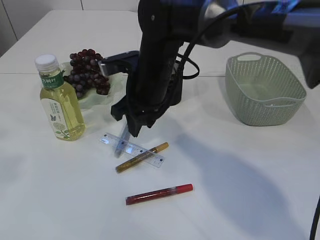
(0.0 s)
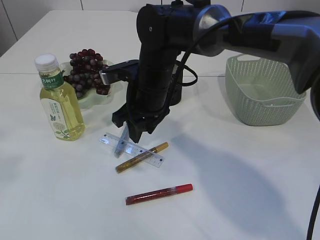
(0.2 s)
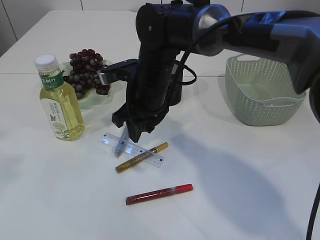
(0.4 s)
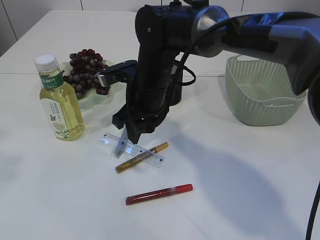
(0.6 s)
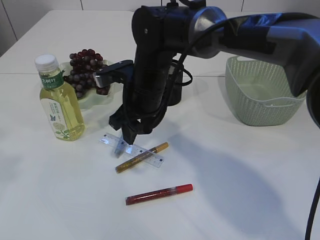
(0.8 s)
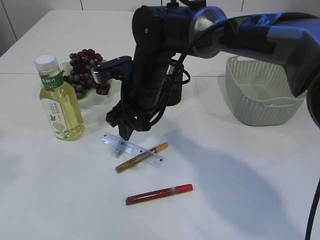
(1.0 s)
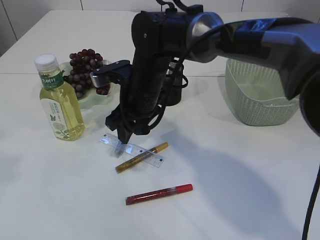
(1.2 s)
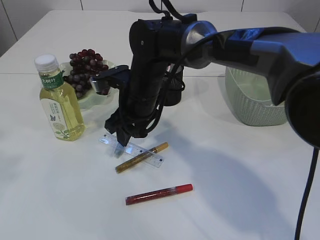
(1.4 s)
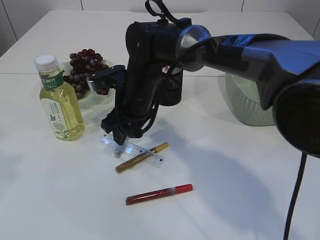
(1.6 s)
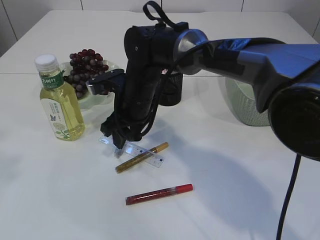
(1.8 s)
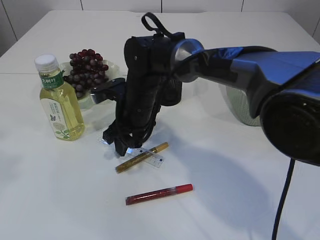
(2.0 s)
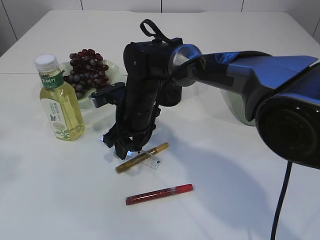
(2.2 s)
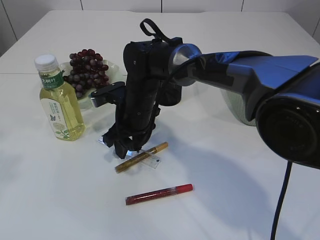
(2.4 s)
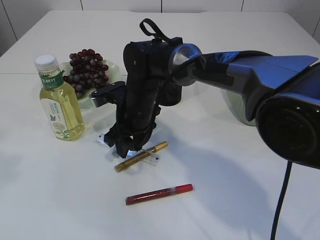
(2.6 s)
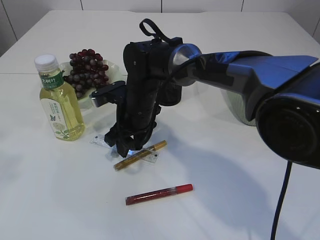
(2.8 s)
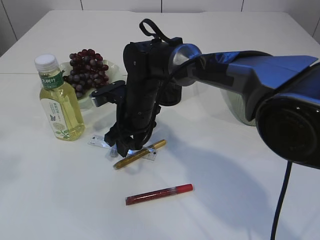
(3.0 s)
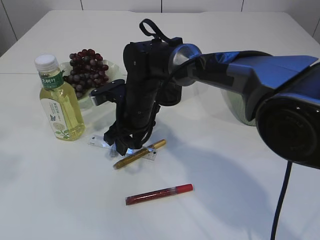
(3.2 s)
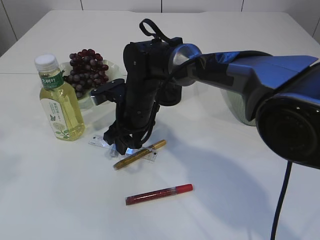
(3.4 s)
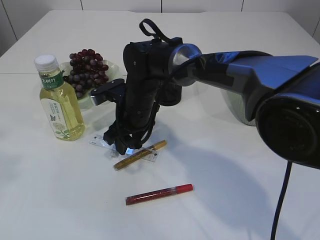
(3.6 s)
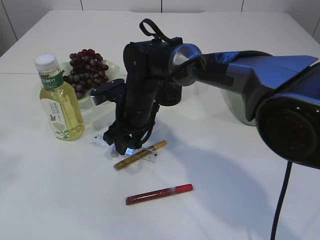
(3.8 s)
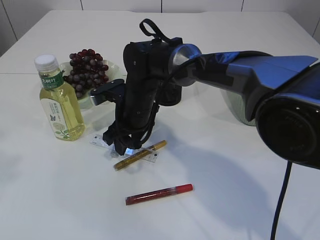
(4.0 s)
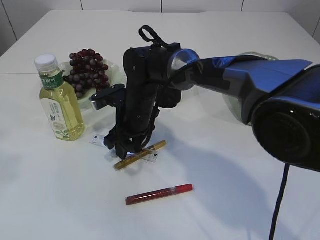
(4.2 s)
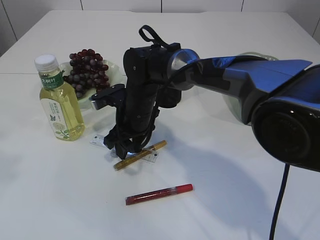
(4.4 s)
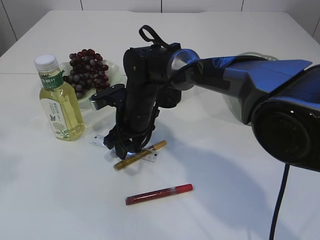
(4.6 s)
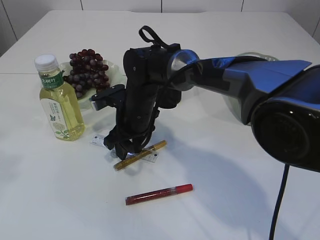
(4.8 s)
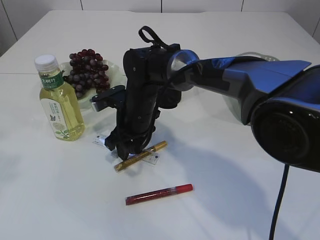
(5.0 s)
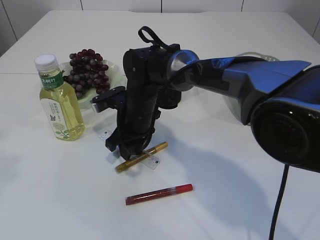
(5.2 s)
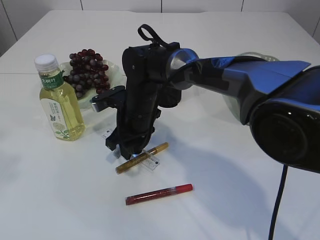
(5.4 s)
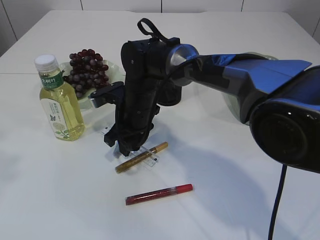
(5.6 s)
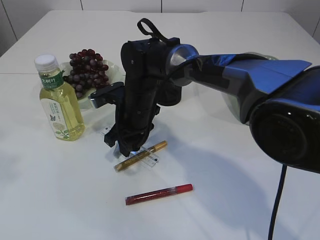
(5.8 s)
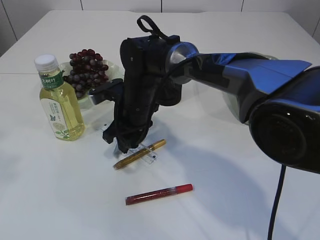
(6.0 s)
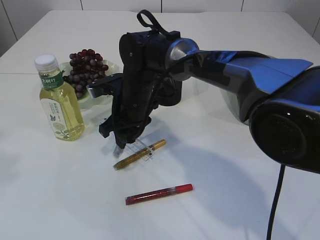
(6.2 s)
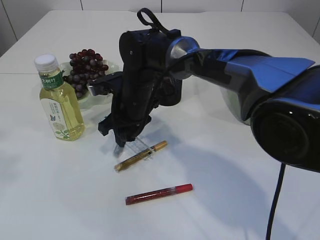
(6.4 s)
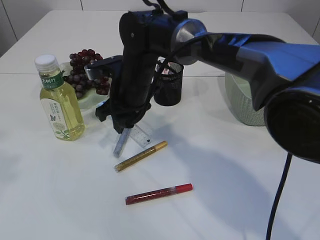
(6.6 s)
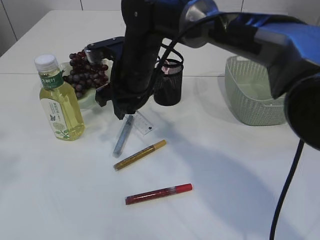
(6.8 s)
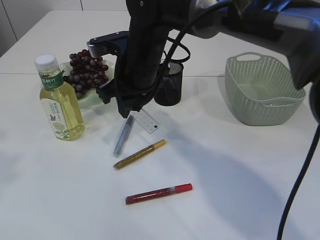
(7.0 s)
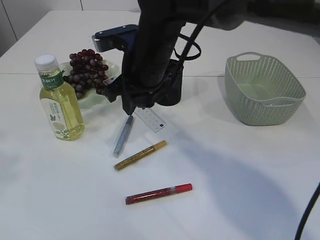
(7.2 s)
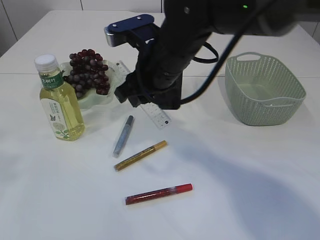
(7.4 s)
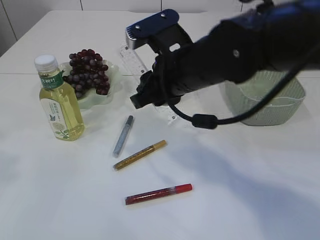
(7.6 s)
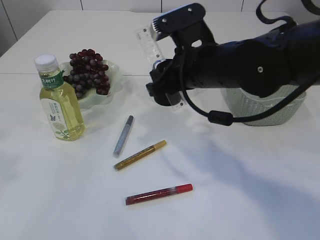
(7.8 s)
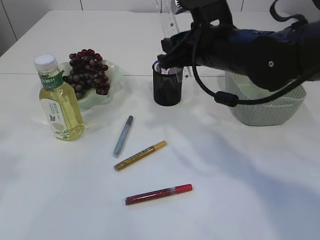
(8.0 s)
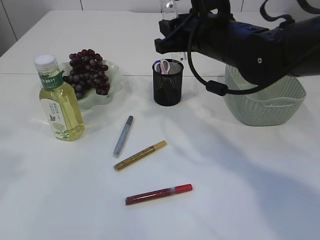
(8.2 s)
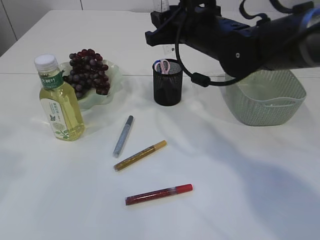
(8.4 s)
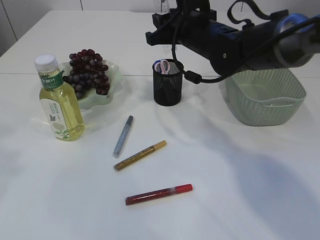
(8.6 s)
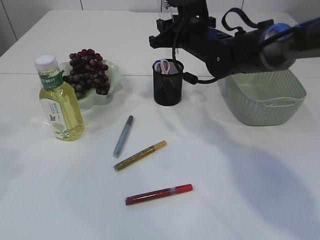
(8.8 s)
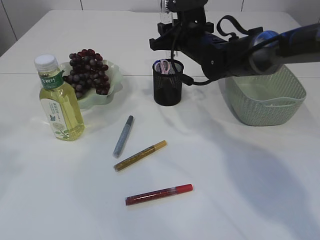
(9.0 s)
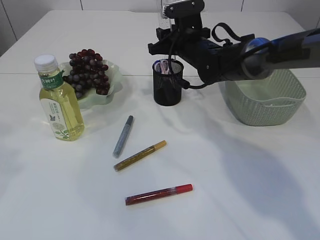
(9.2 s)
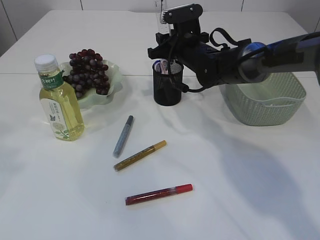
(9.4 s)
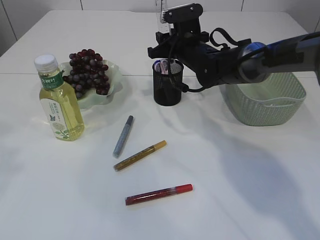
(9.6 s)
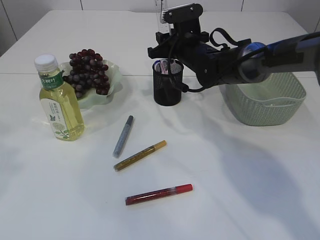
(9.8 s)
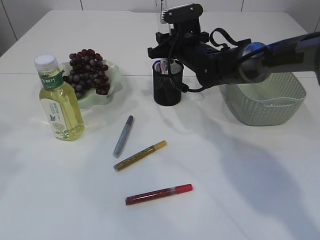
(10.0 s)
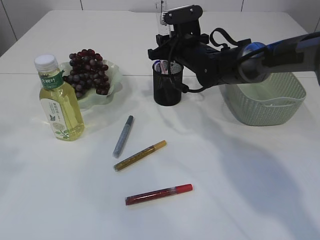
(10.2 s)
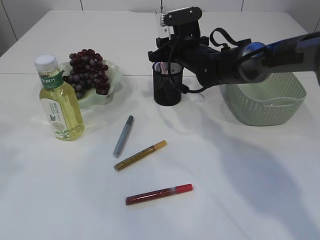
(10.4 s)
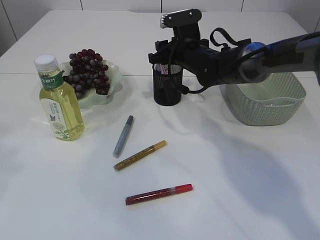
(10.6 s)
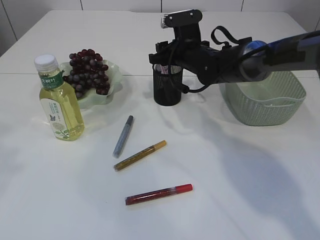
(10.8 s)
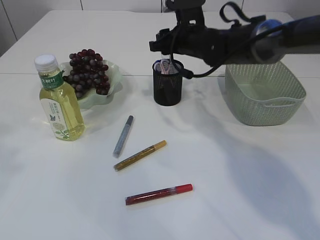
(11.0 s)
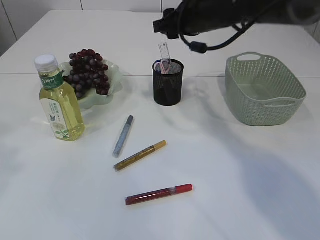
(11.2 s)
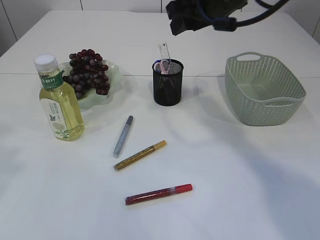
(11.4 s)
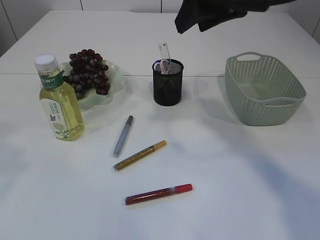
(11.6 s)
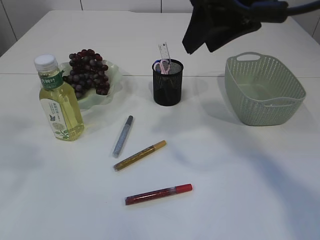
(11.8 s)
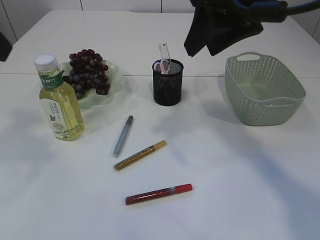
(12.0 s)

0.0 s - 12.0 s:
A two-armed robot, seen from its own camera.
Step, 0.0 s - 7.0 s: pick up the ruler.
Step, 7.2 s - 11.4 s: Place the ruler into the pen holder.
0.0 s - 1.6 s: The right gripper ends up about 5 cm from where it was.
1.6 s - 3.0 s: The grippers make only small movements.
3.0 s - 6.0 s: Neither gripper changes place.
6.0 s - 7.6 s: The right gripper goes approximately 15 cm upward, backward and to the right.
7.6 s - 9.0 s: The right gripper travels forward by roughly 15 cm.
9.0 s - 10.4 s: The grippers move only a little.
10.4 s - 12.0 s: The left gripper moves about 5 cm, while the right gripper moves upward and backward, roughly 25 cm.

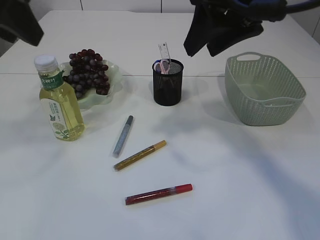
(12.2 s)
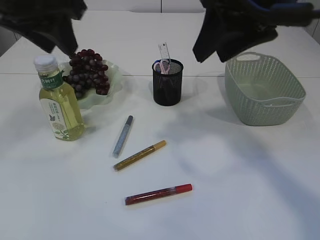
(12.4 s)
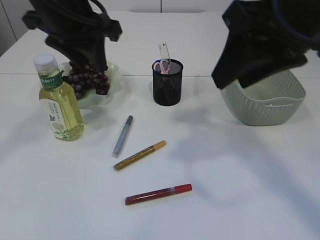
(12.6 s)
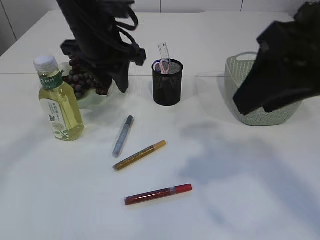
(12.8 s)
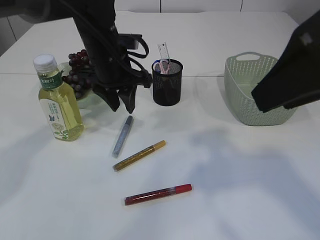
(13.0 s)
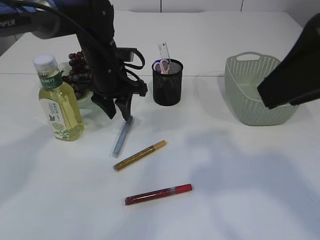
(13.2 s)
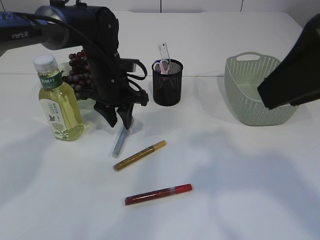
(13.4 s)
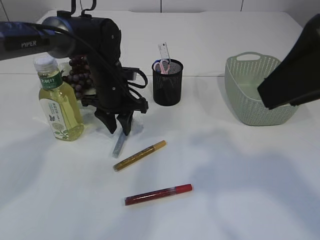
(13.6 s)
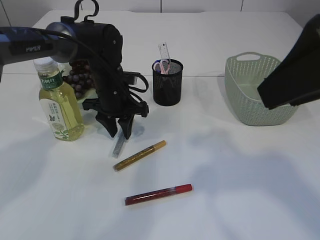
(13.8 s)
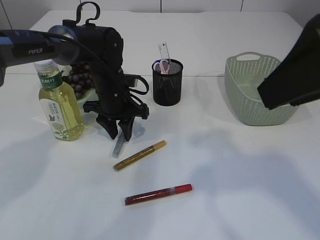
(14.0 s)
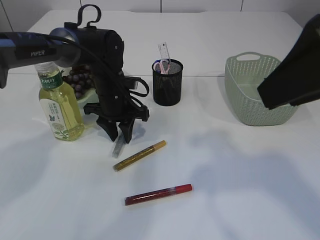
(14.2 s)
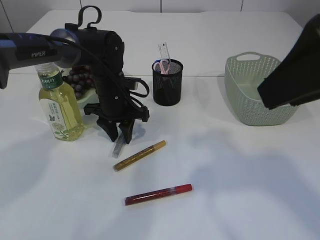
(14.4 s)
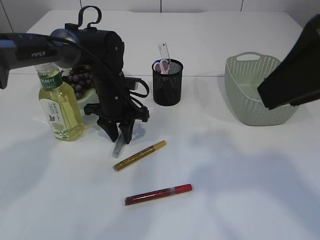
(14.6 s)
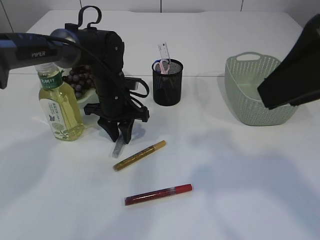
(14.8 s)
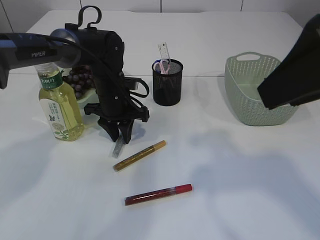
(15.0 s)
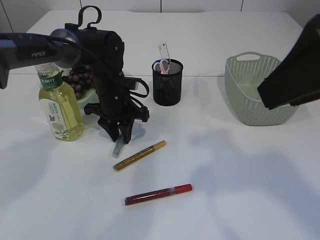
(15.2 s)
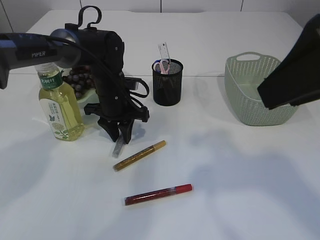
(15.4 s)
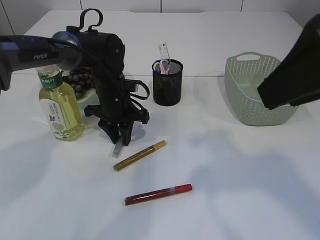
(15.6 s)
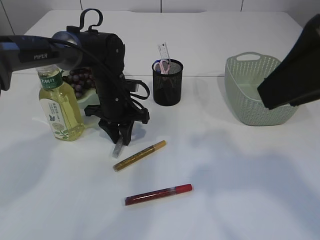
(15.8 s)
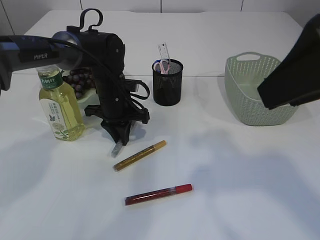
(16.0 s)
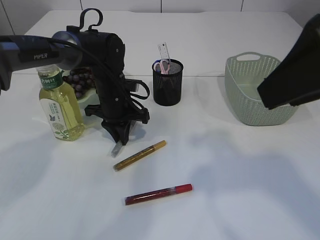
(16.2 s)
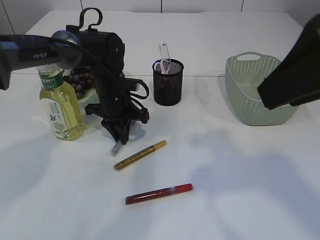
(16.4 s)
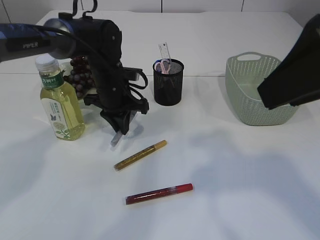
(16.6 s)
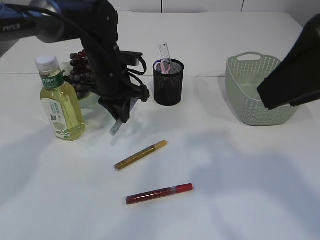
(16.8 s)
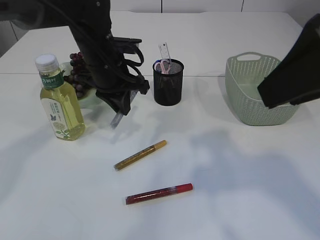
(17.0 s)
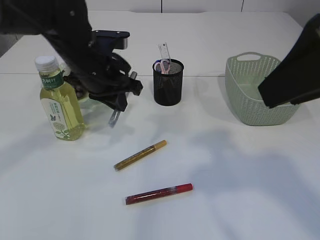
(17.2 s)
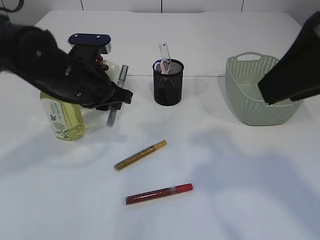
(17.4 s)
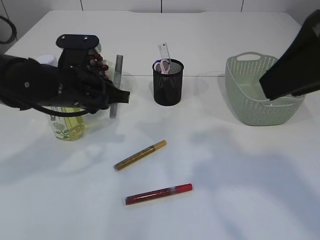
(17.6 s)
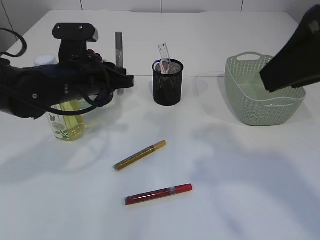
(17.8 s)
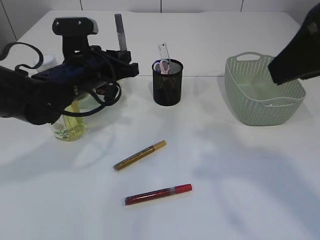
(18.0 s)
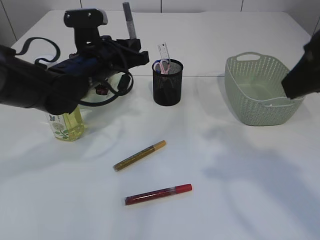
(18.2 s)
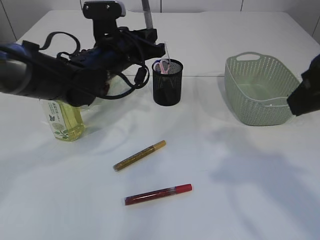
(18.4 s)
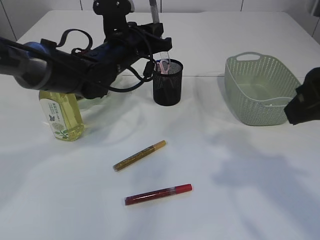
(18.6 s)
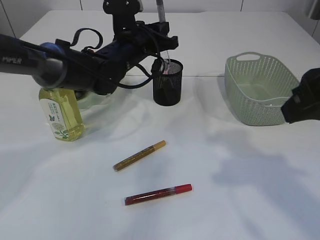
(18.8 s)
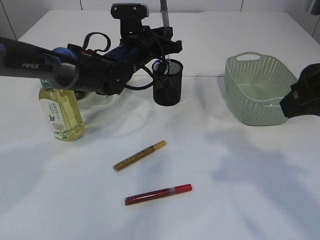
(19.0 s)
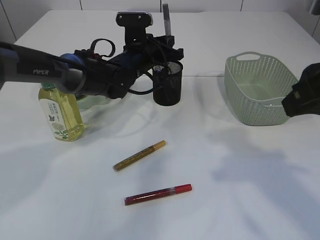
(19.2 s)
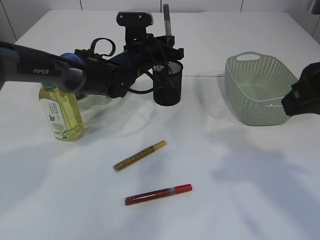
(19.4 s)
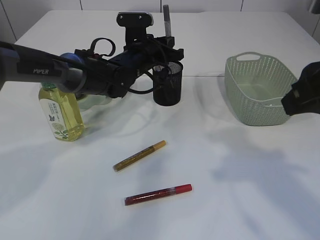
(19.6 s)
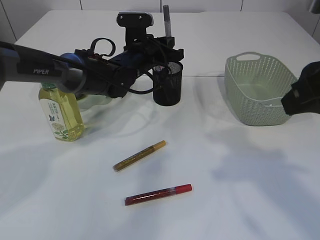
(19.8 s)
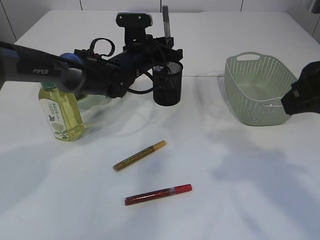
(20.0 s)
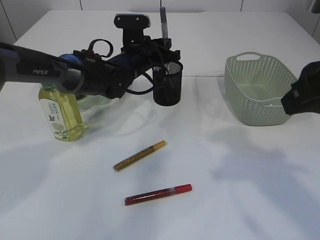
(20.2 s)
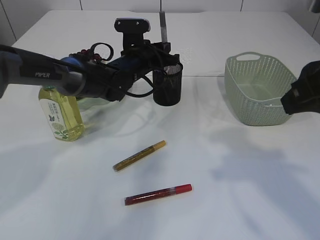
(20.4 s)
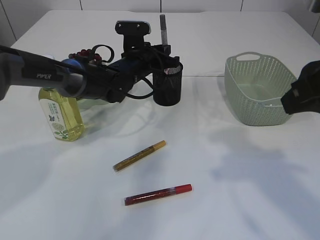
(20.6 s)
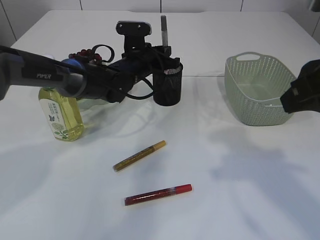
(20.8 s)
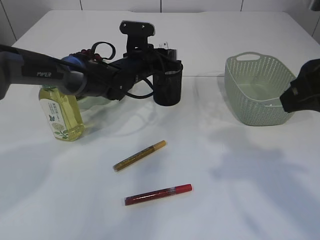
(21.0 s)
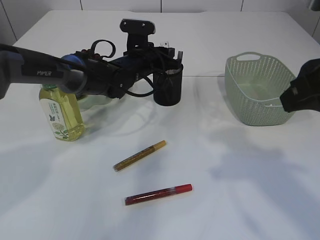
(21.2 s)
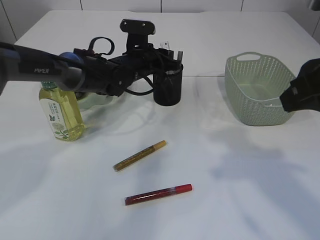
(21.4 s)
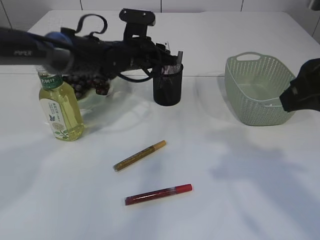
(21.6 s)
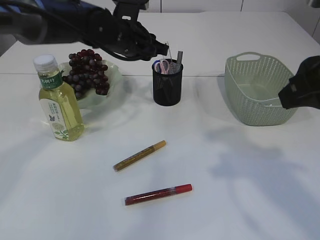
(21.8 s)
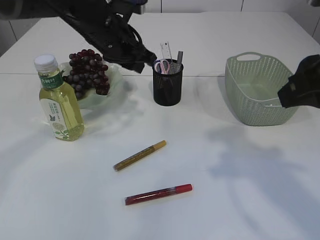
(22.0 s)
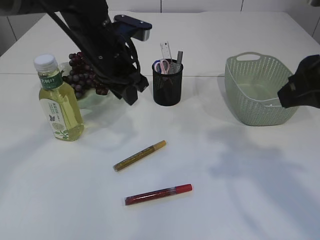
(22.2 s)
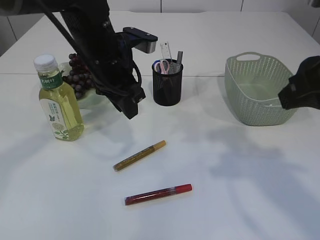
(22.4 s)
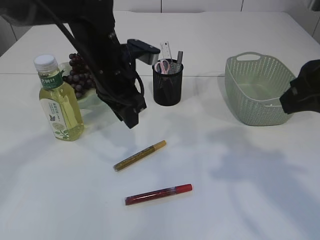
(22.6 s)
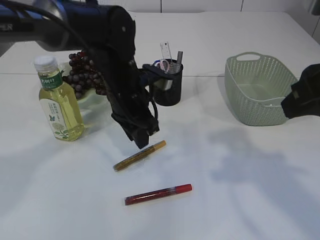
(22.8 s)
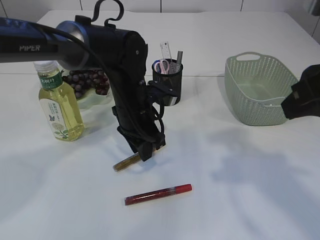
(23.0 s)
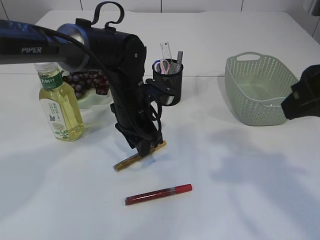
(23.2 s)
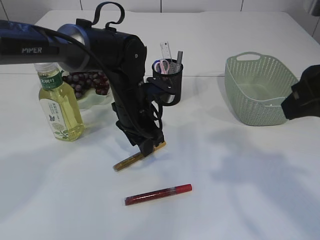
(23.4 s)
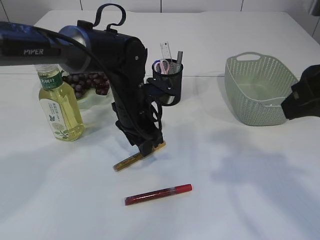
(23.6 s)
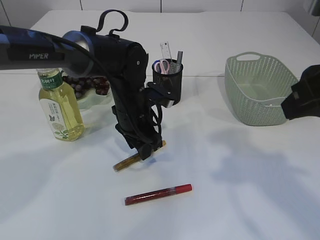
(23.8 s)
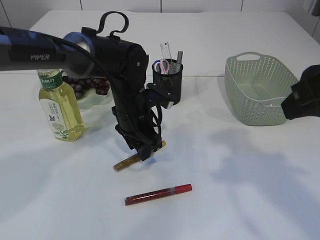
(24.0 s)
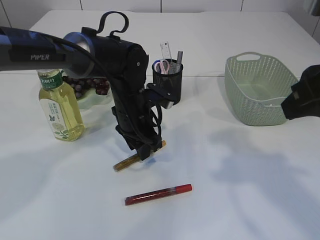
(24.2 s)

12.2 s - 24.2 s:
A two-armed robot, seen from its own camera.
Step, 12.2 s - 17.2 s: pick up the silver glue.
Step, 17.4 s - 22.0 s: place the silver glue into the pen holder.
12.2 s - 13.8 s: The right gripper travels backward by roughly 15 cm, while the left gripper shifts approximately 35 cm downward and forward.
13.8 s - 15.2 s: Both grippers stay about where they are.
15.2 s - 16.6 s: The grippers move only a little.
16.6 s - 18.2 s: The left gripper heads upward, covering approximately 5 cm.
18.2 s - 19.8 s: The left gripper travels forward and to the right by roughly 10 cm.
19.8 s - 21.2 s: There are only small adjustments of the grippers.
21.2 s - 22.6 s: The left gripper heads backward and upward, covering roughly 15 cm.
22.6 s - 24.2 s: The left gripper goes approximately 10 cm downward.
